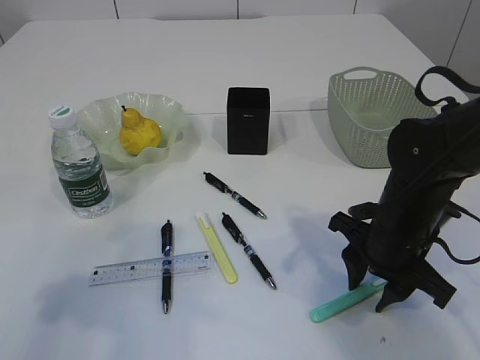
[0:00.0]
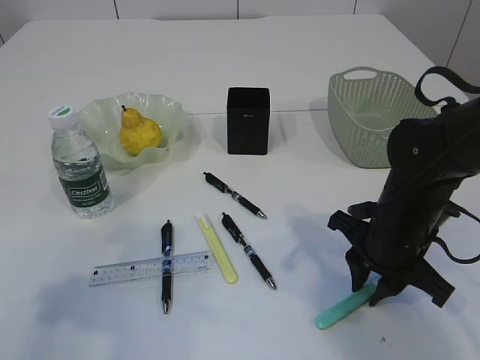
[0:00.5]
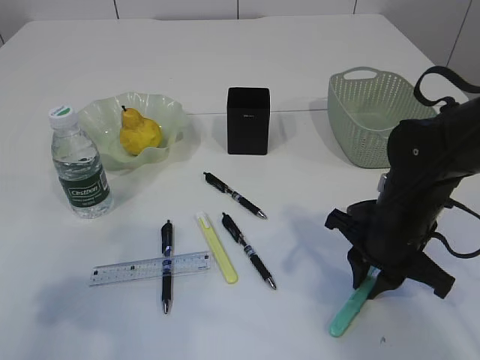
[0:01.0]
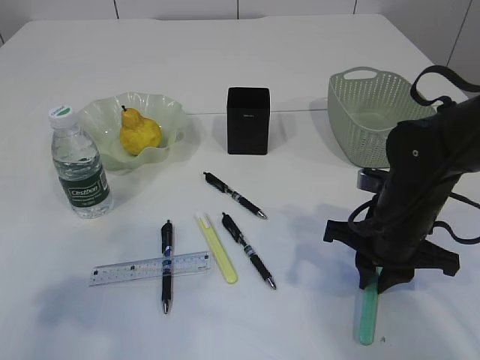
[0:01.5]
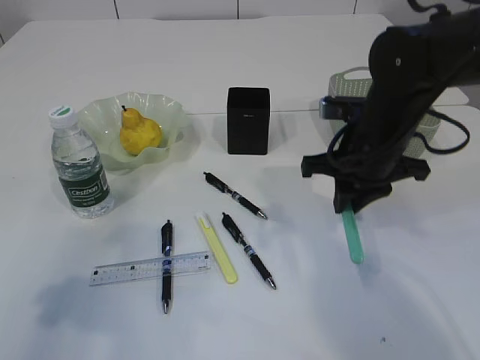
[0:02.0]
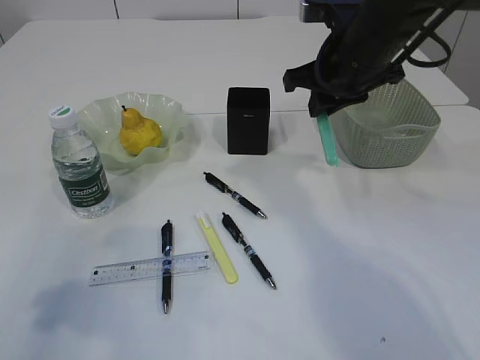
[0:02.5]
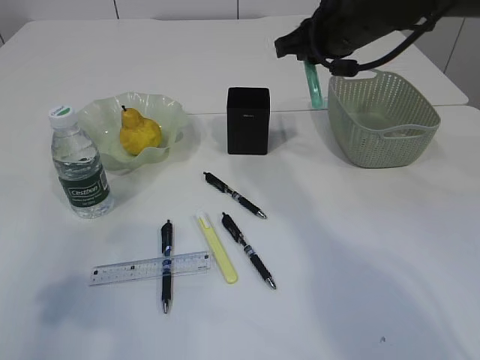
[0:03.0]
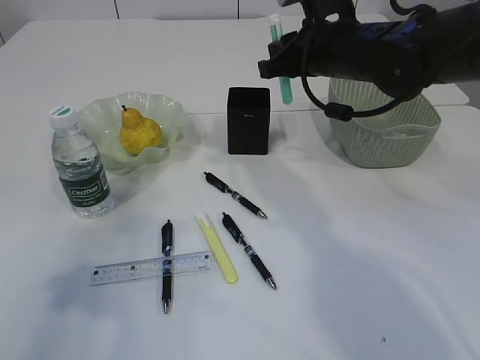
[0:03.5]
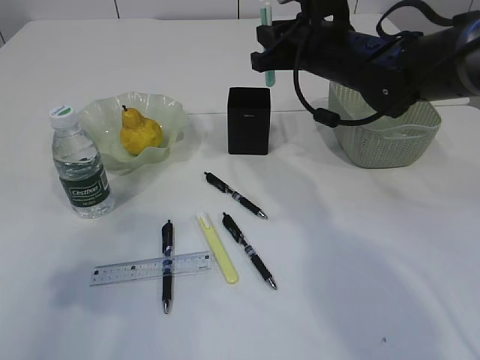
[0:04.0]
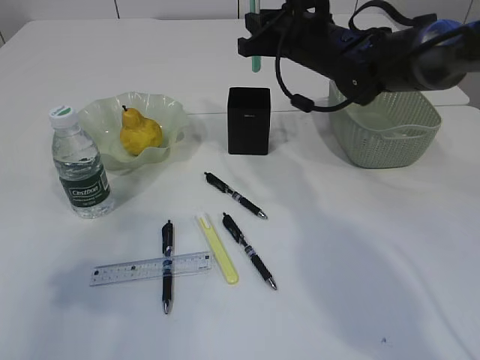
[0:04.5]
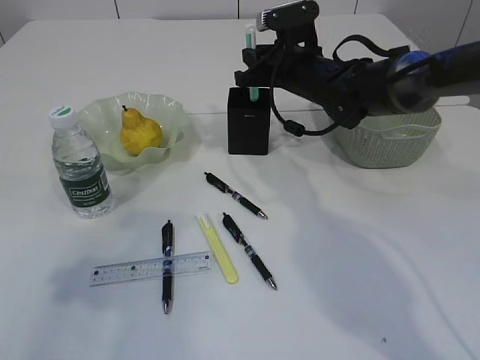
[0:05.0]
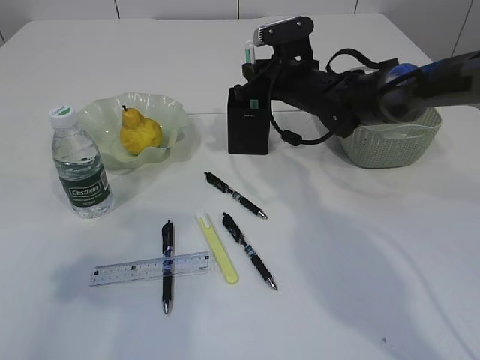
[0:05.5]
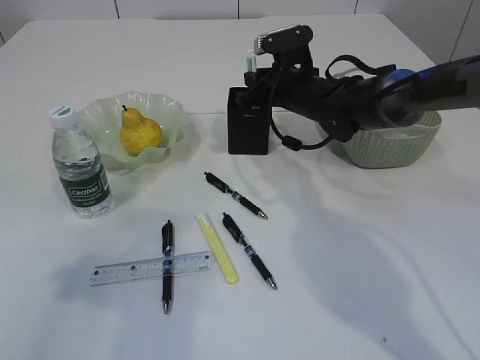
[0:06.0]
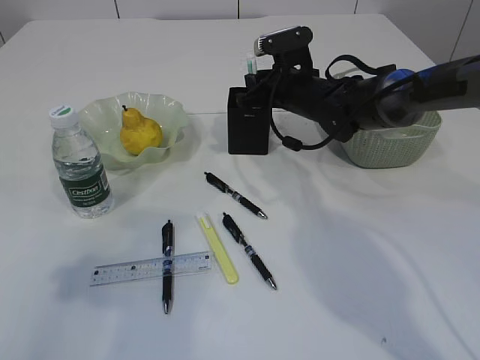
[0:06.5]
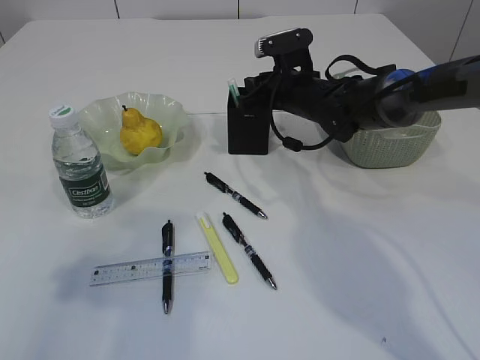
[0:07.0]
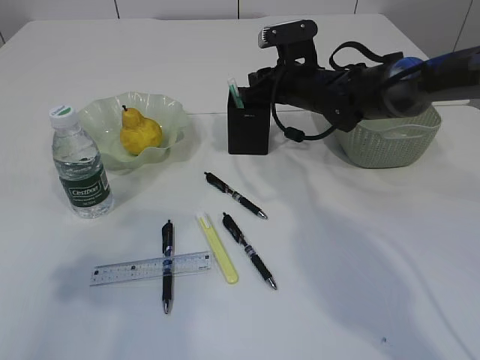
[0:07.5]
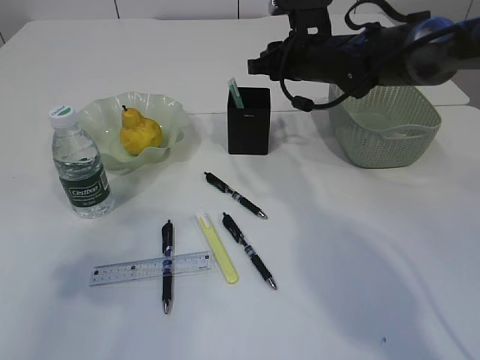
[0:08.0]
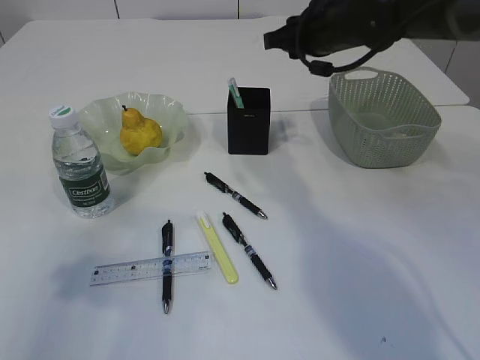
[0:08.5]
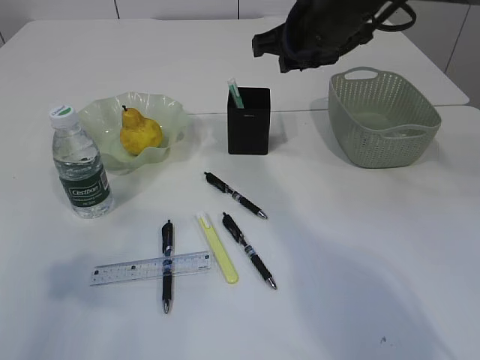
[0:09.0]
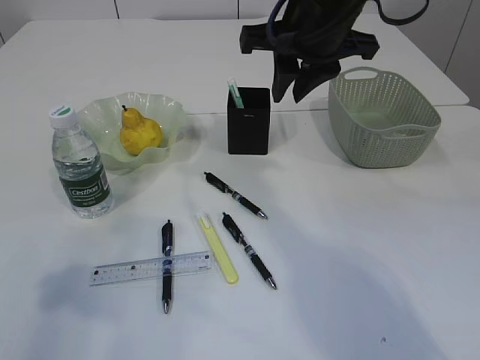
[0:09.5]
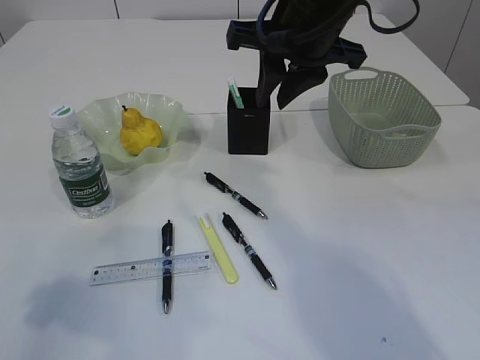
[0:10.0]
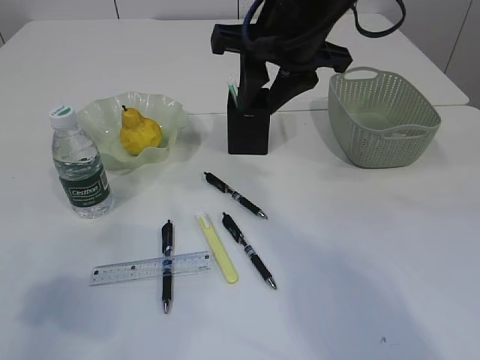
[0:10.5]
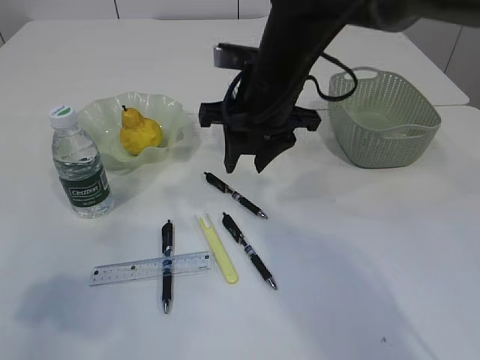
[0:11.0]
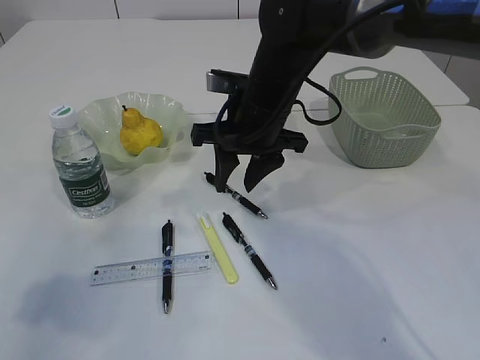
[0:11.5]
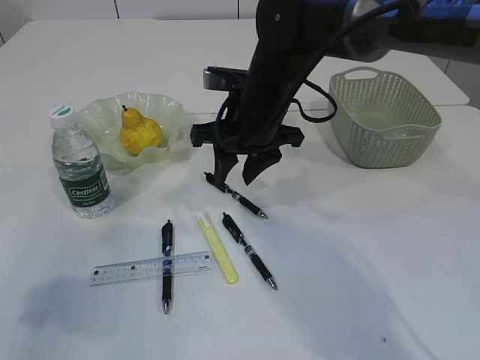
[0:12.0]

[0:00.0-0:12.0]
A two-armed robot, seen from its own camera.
Step, 0.0 to 2.0 s: pick up the blue knife.
Step, 2.5 to 7.5 s: Place the blue knife into the pen holder.
0.0 to 2.0 s: The right gripper is displaced upward and forward by some 10 cm, and closes up.
2.0 to 4.0 s: The right gripper is displaced forward and upward by approximately 10 cm.
4.0 to 6.0 s: The right gripper heads downward and forward, covering approximately 10 cm.
6.0 to 8.0 s: The right gripper travels upward by approximately 5 cm.
8.0 to 10.0 s: The right gripper goes approximately 15 cm backward and upward.
10.0 to 12.0 s: The right gripper is displaced downward by approximately 10 cm.

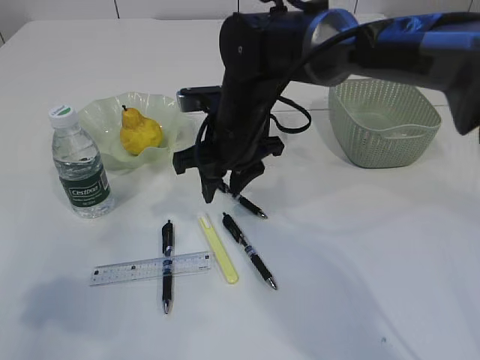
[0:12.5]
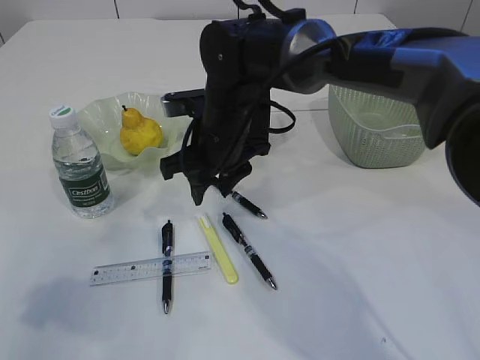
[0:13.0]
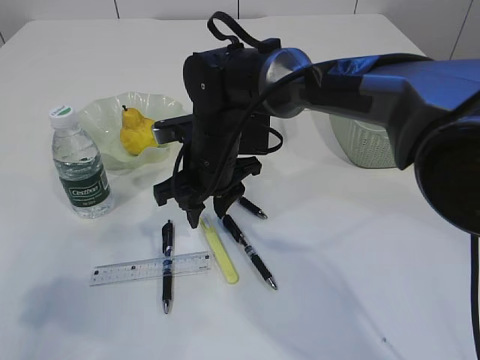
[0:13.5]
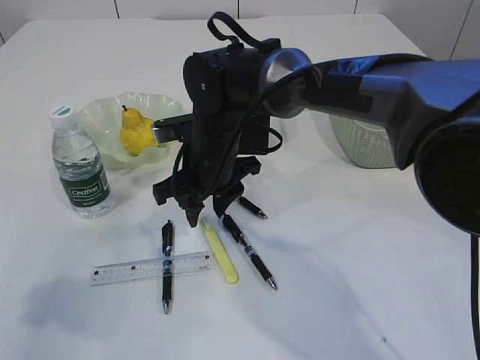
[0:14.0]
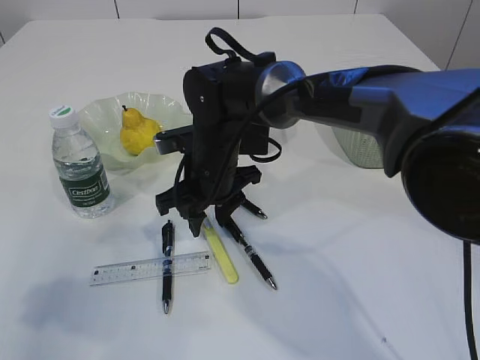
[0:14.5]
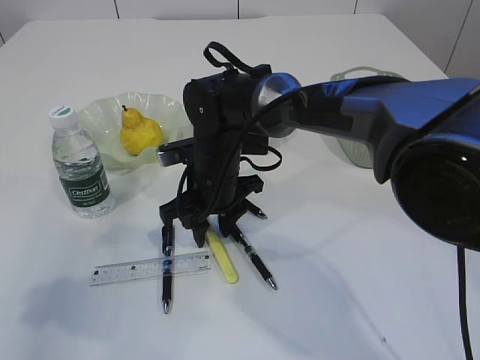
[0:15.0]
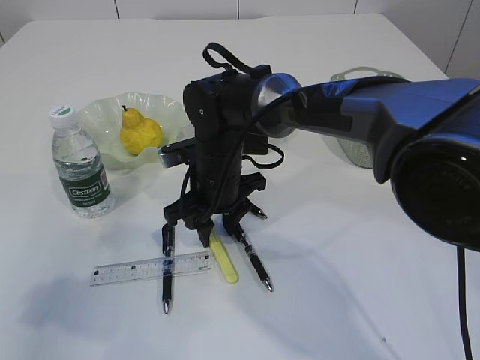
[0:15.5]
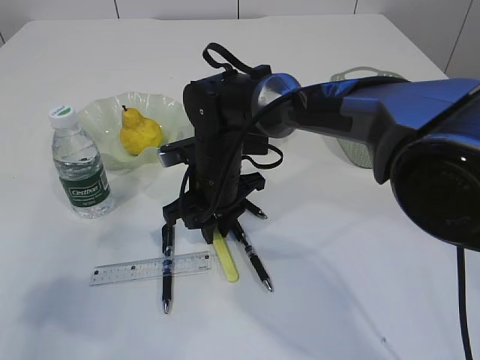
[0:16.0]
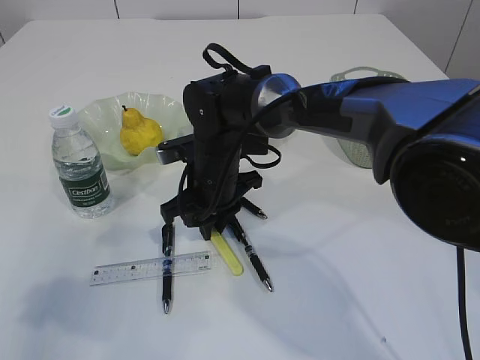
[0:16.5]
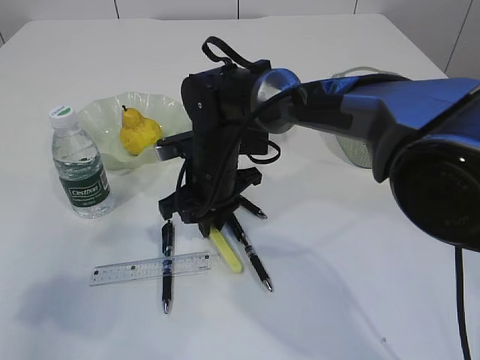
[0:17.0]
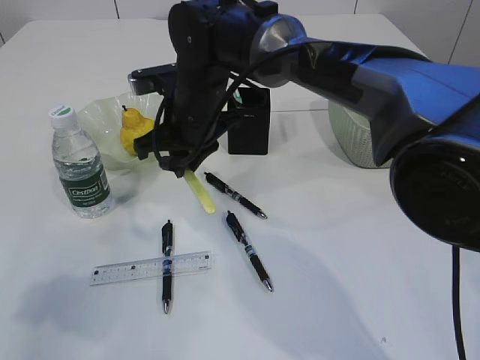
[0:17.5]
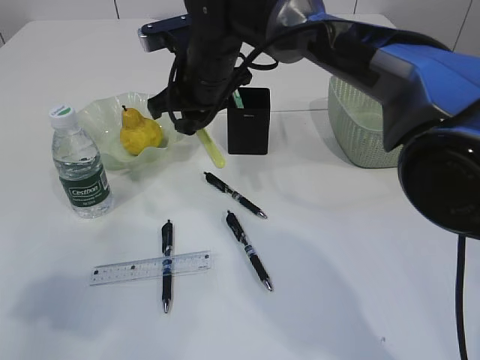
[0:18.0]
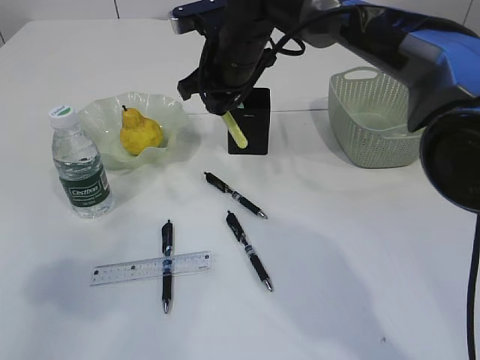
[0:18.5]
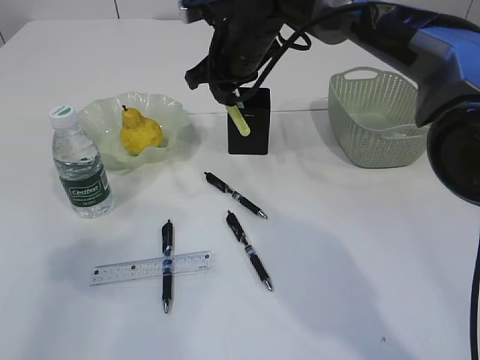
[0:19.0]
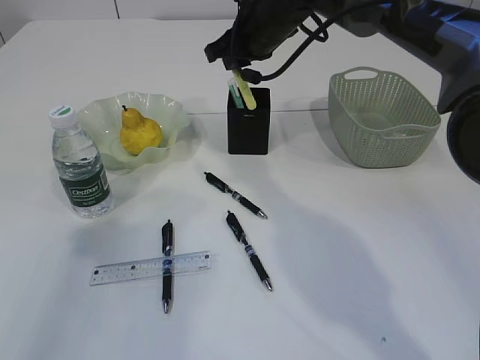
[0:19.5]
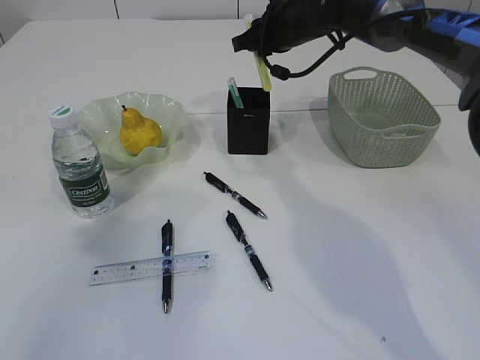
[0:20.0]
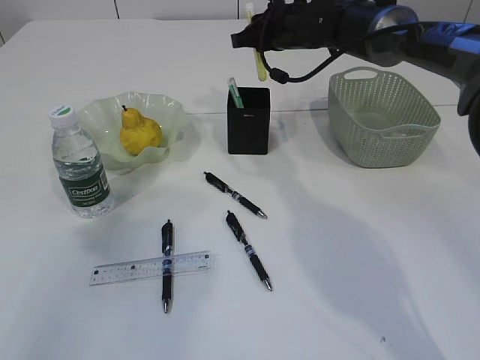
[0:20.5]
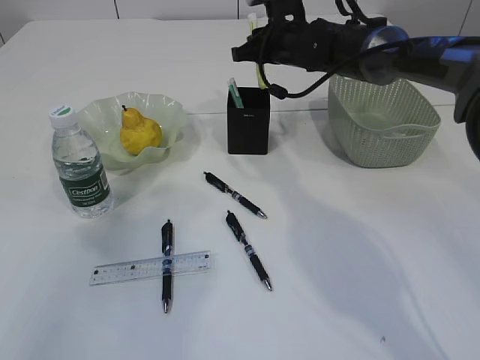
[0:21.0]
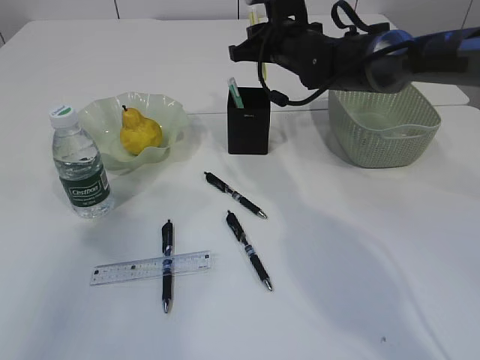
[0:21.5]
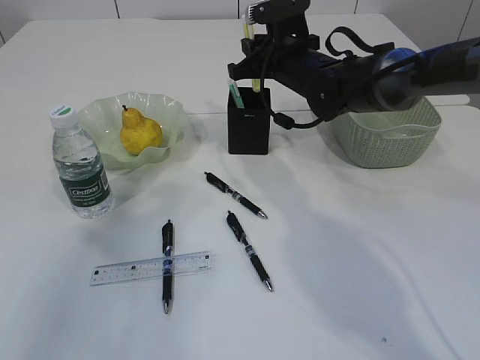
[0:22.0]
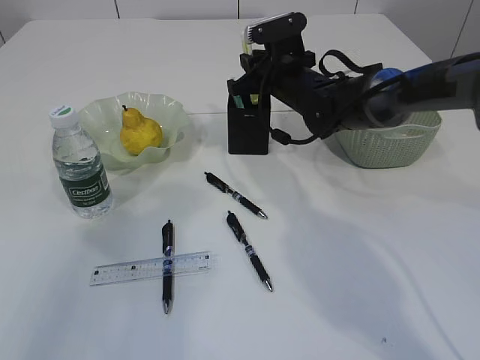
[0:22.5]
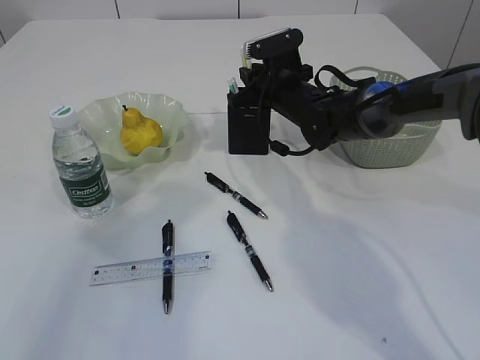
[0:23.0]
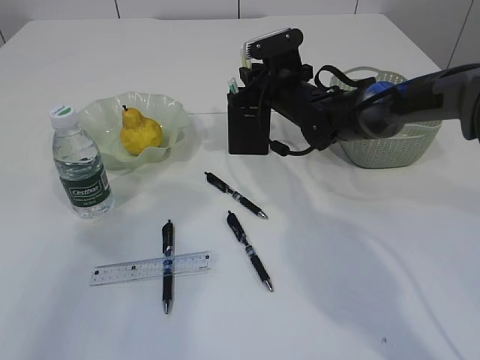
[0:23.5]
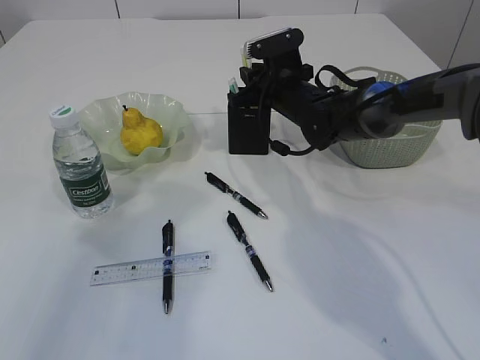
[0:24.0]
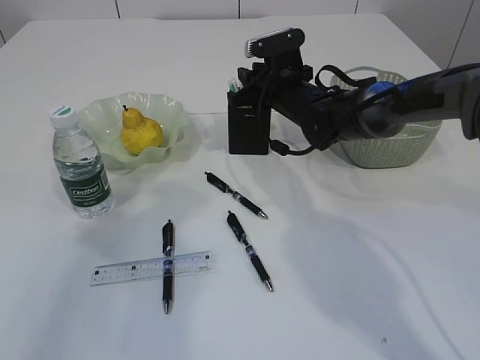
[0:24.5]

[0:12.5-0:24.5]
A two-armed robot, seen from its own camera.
Step, 12.5 to 17.5 s: pick up the yellow knife.
12.5 to 14.5 s: The right gripper changes place by about 5 cm.
14.5 to 16.5 s: The right gripper closes its fingers.
16.5 to 18.5 s: The right gripper moves upward and forward, approximately 15 cm.
18.5 to 20.5 s: The right gripper travels to the right and forward by roughly 10 cm.
20.5 to 22.5 s: The right gripper goes approximately 5 cm downward.
22.5 to 24.5 s: The grippers stay close to where they were, moving slightly.

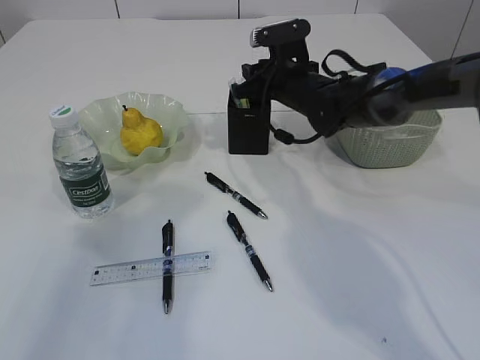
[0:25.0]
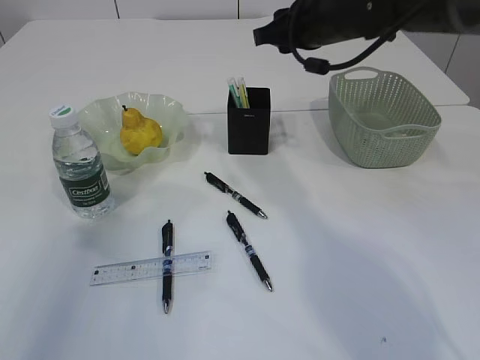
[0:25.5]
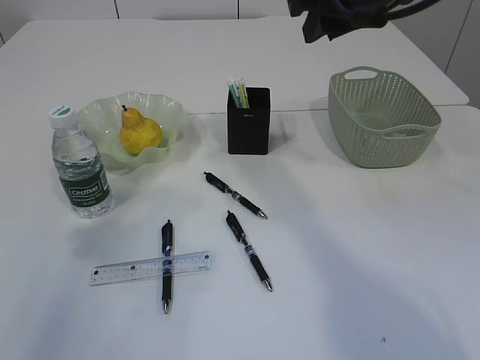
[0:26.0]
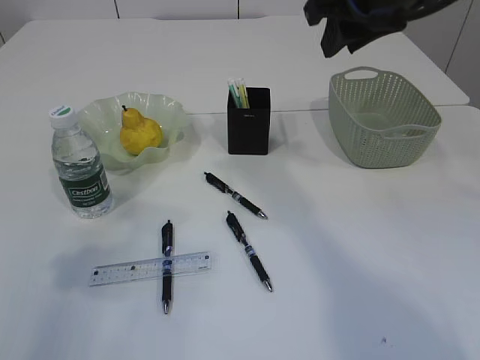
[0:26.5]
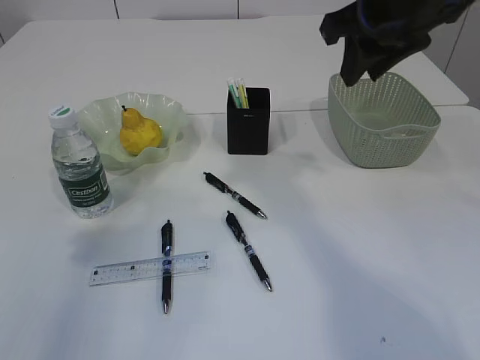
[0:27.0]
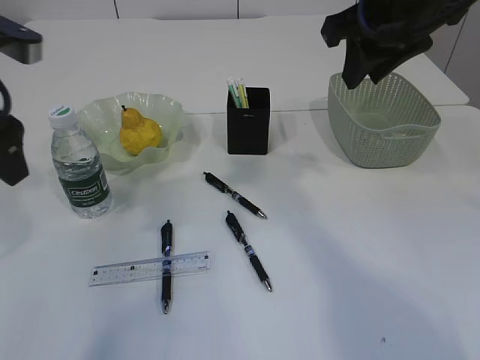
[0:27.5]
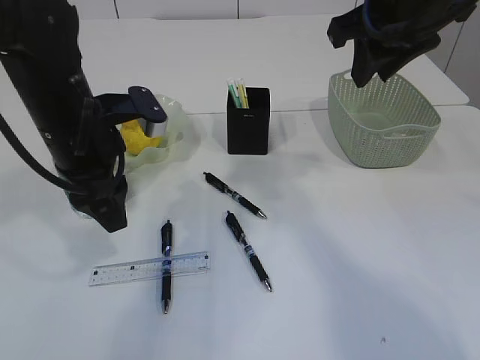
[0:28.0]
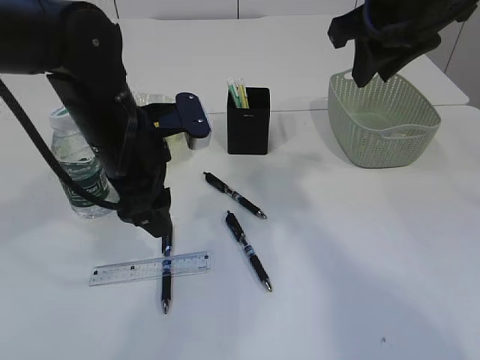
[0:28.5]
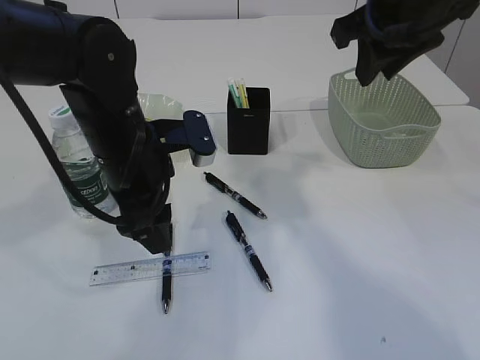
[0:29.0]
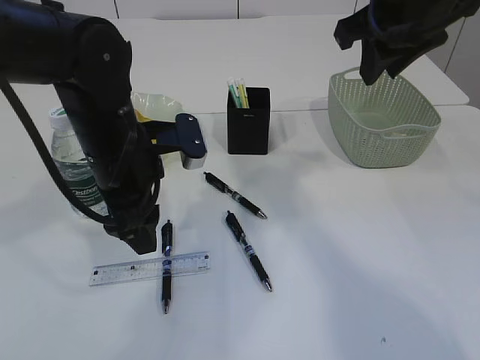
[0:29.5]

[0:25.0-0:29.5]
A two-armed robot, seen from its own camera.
25.0 to 27.0 s: The right gripper heads upward and backward, covering about 25 cm.
27.0 to 29.5 s: The left gripper travels to the right, forward and downward by approximately 20 cm.
